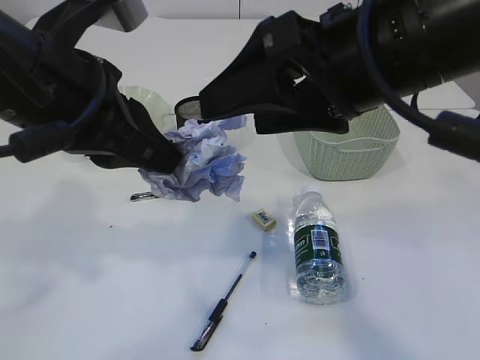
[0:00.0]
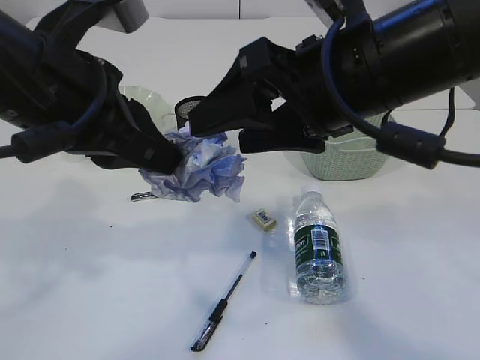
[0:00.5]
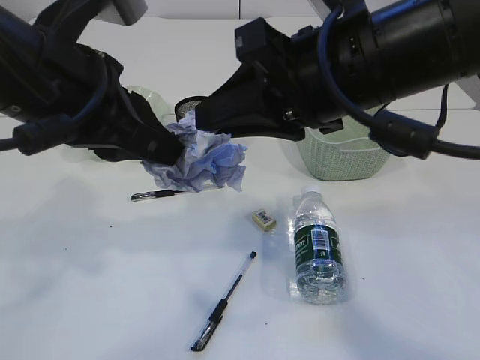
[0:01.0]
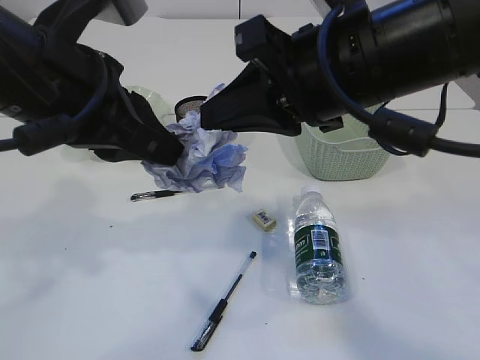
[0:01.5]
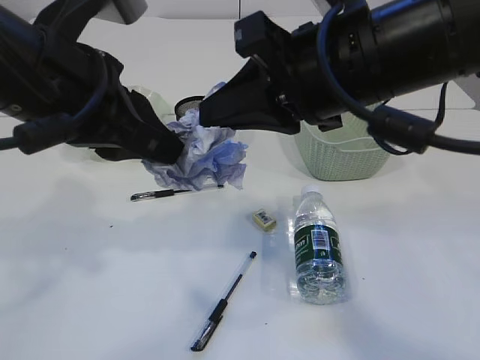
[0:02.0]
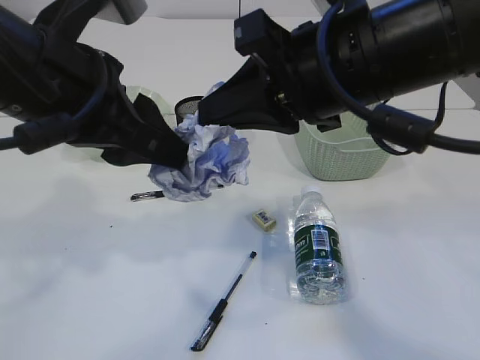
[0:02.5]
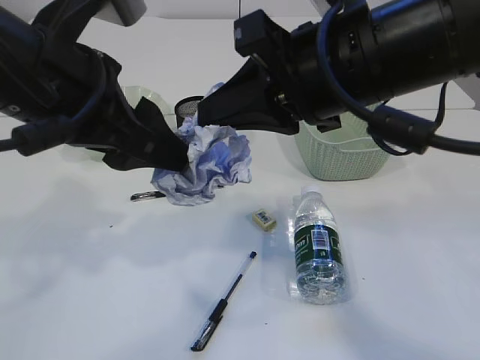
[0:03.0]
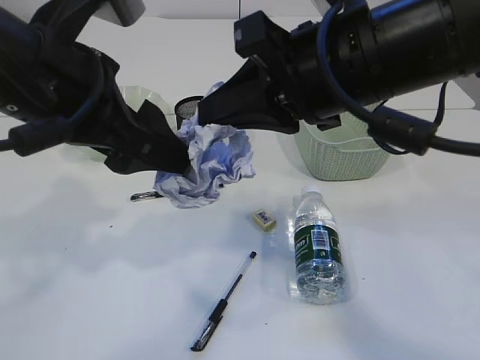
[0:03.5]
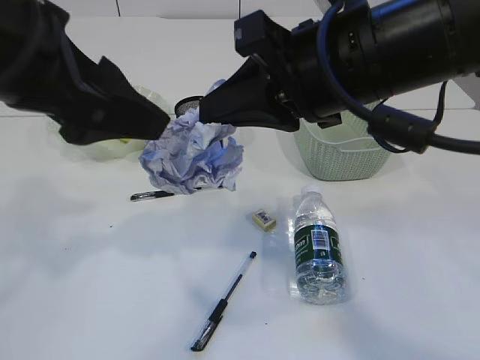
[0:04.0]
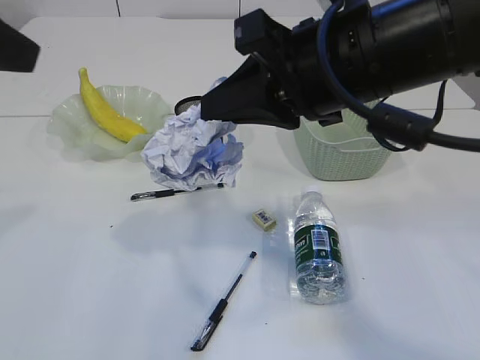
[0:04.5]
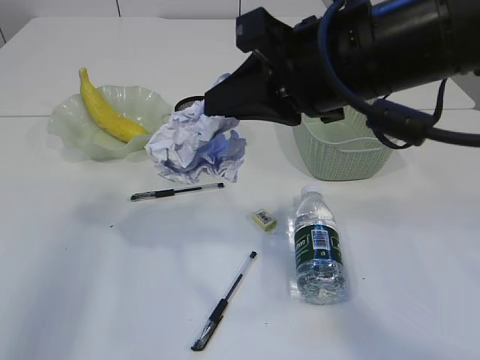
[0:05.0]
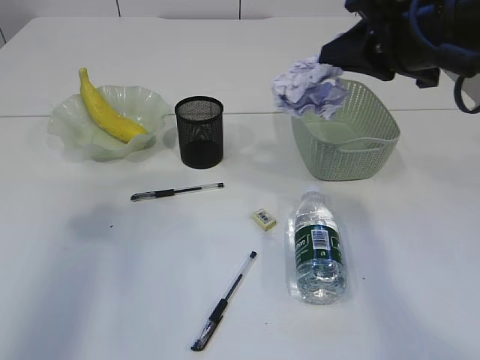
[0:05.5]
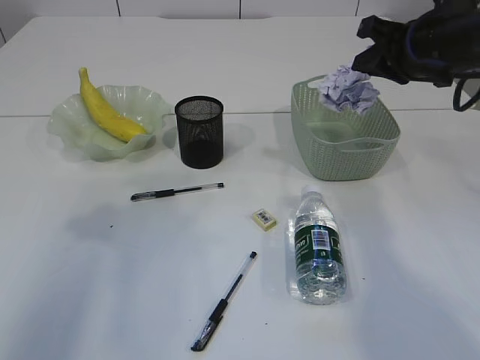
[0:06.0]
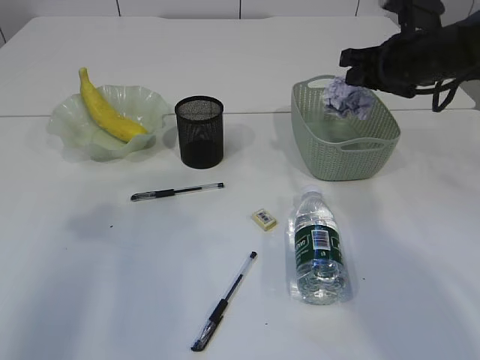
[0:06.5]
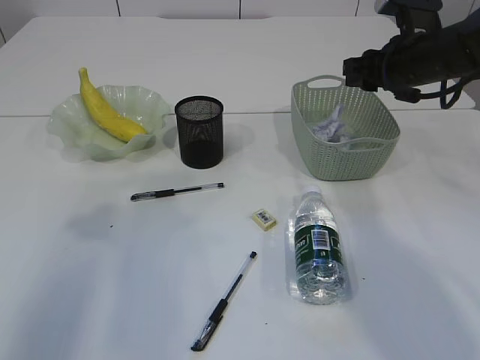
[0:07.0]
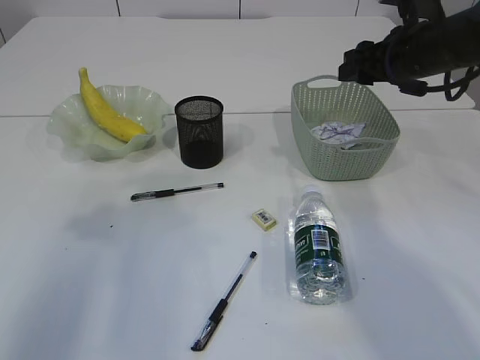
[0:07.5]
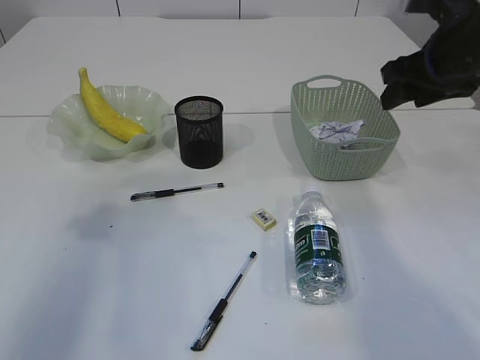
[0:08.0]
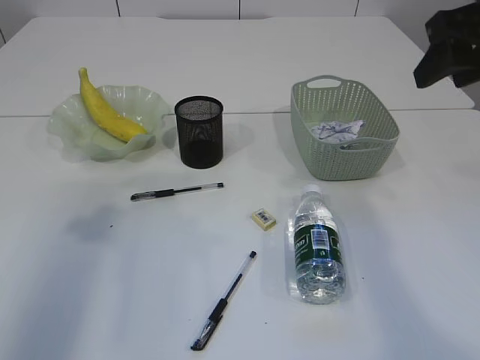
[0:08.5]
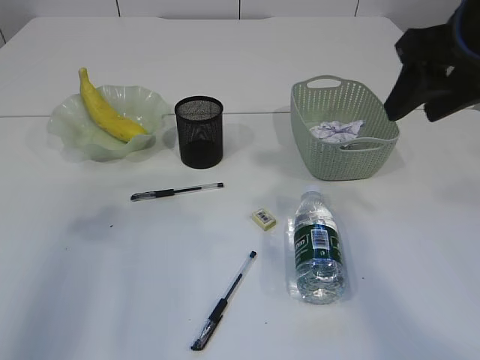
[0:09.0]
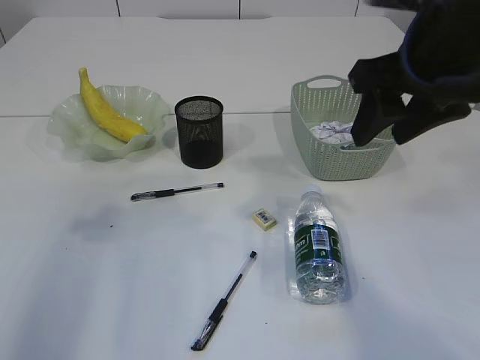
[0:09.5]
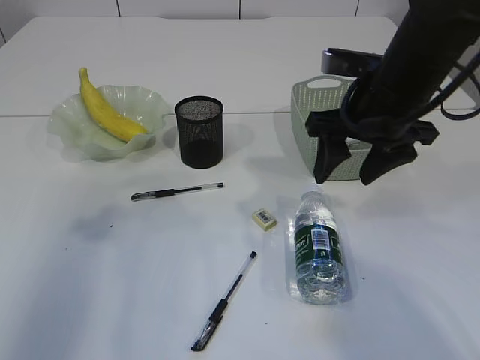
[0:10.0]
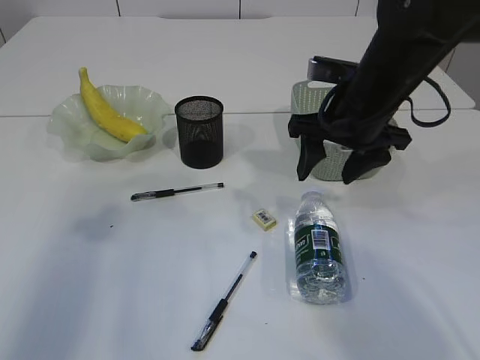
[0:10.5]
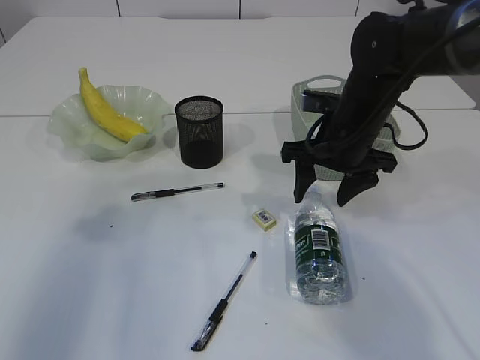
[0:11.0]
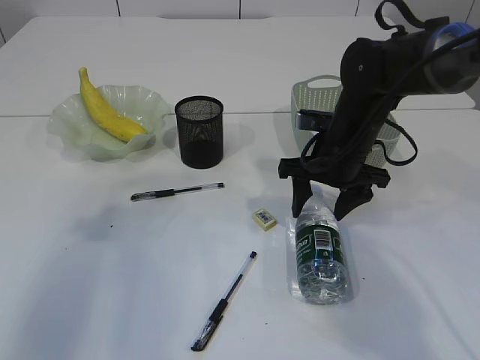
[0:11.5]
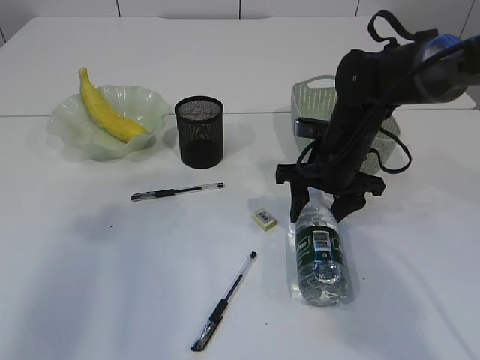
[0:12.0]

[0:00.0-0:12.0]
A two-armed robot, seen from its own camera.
Step, 0.0 to 4.0 s: Hand over the waste paper.
Step, 4.5 to 7.5 s: Place the waste paper in the basket.
0.0 to 2.0 s: The right gripper closes its fingers.
2.0 to 4.0 s: The left gripper opens its fingers.
4.0 to 6.0 s: The left gripper goes approximately 15 cm to the left. The right gripper travels to the right and forward by some 20 cm.
6.0 to 8.0 s: The right gripper opens up.
8.0 to 10.0 s: The right gripper is displaced to the left by some 10 cm, and moves some 5 cm upward and comes back.
10.0 to 12.0 s: The right gripper travels downward and forward by some 15 cm.

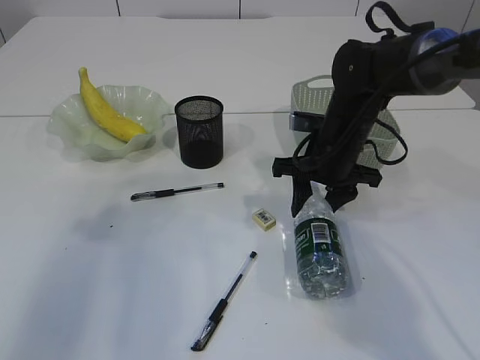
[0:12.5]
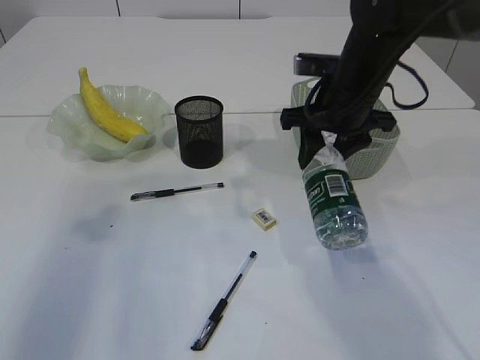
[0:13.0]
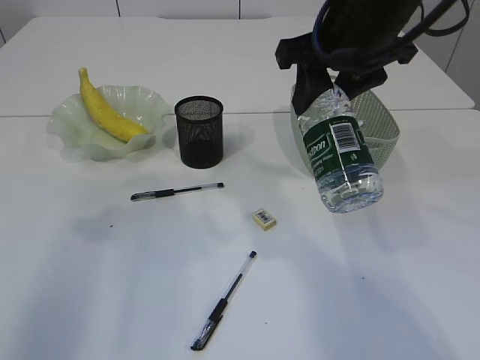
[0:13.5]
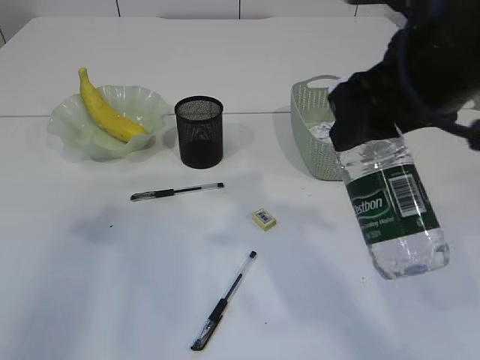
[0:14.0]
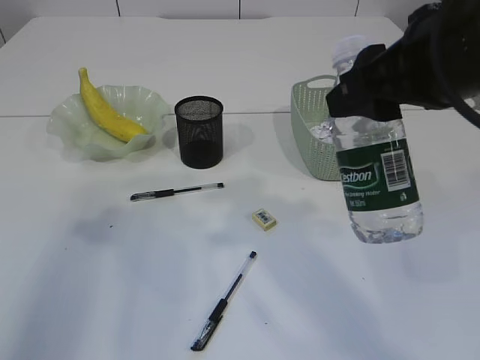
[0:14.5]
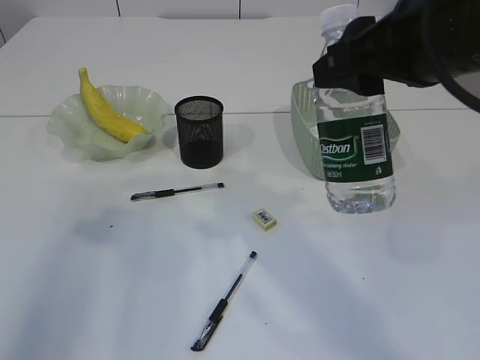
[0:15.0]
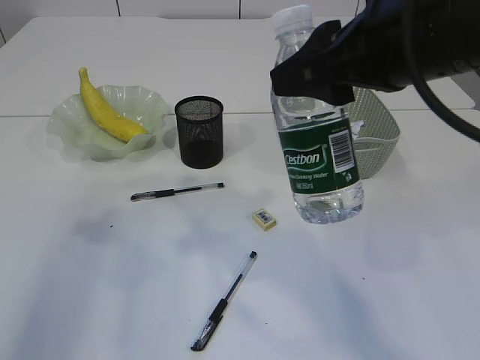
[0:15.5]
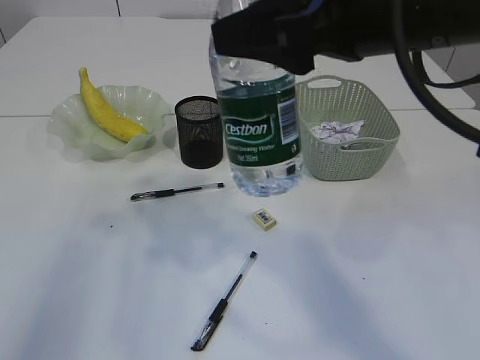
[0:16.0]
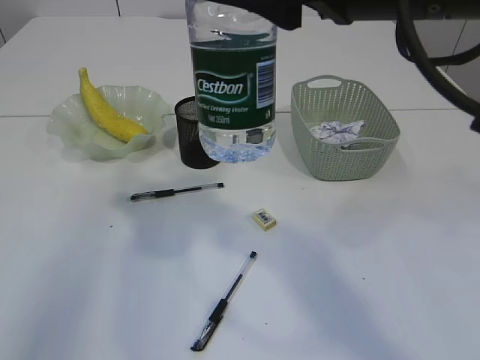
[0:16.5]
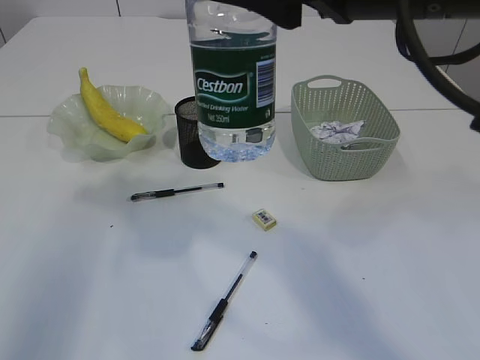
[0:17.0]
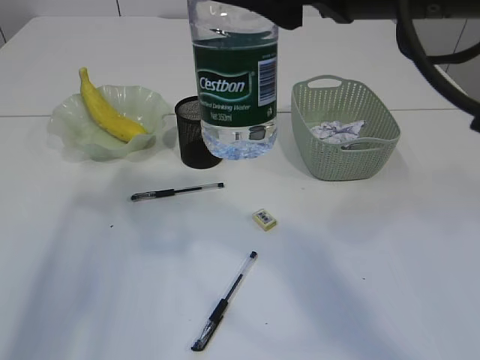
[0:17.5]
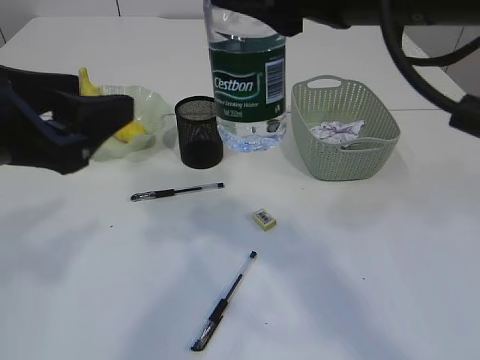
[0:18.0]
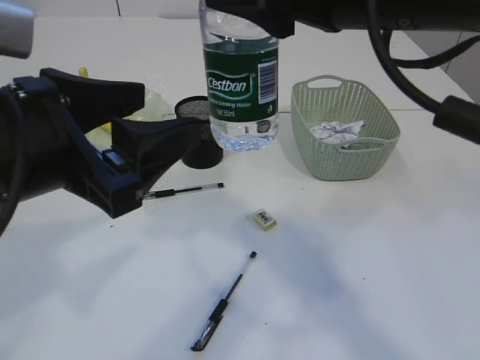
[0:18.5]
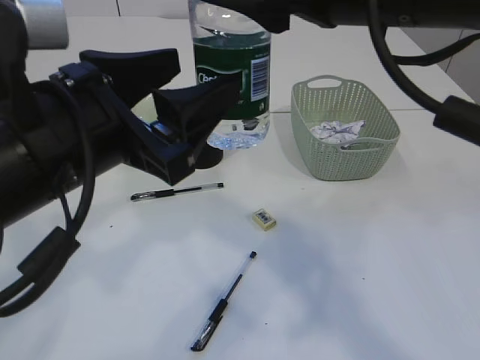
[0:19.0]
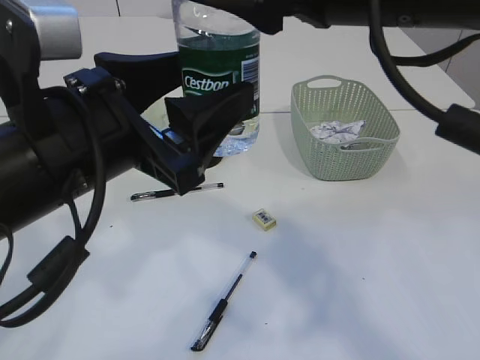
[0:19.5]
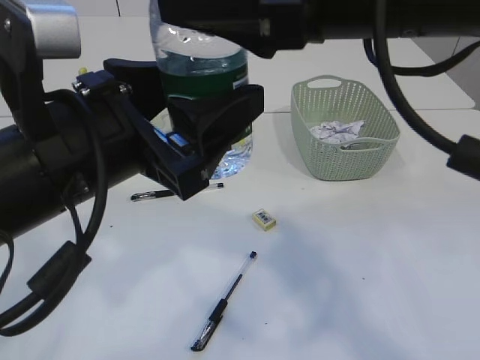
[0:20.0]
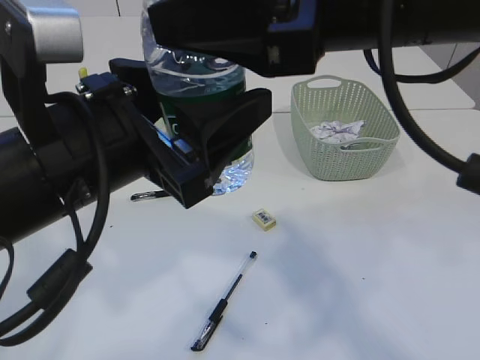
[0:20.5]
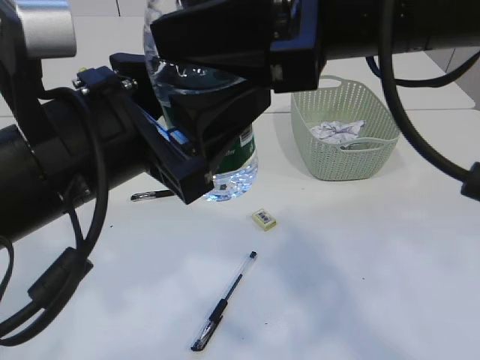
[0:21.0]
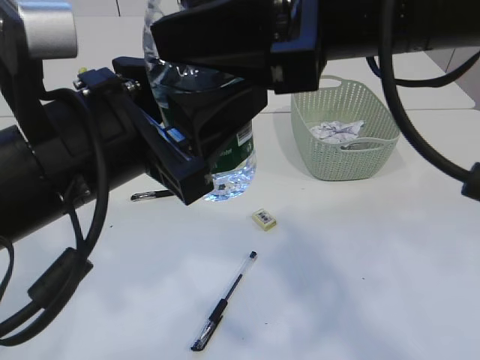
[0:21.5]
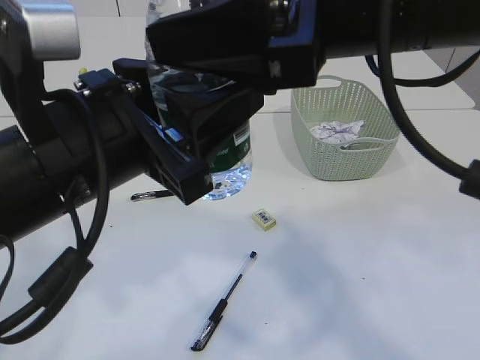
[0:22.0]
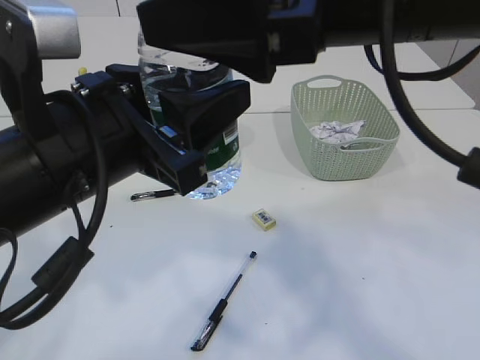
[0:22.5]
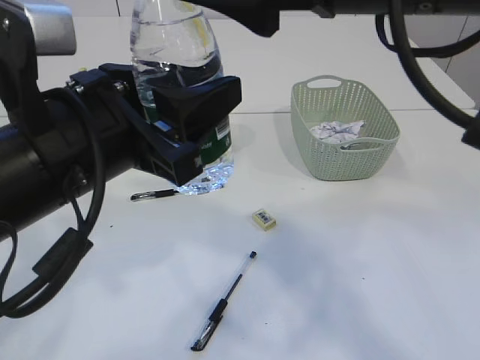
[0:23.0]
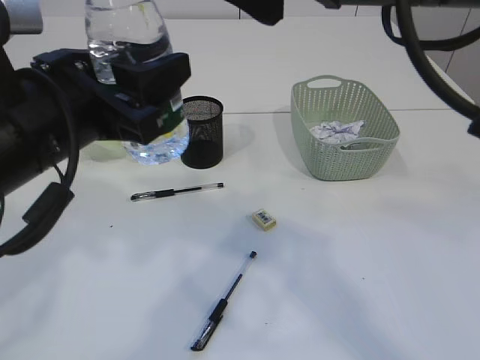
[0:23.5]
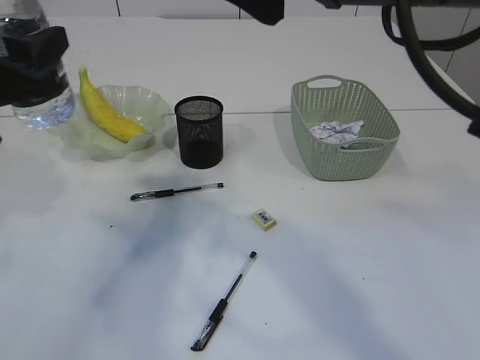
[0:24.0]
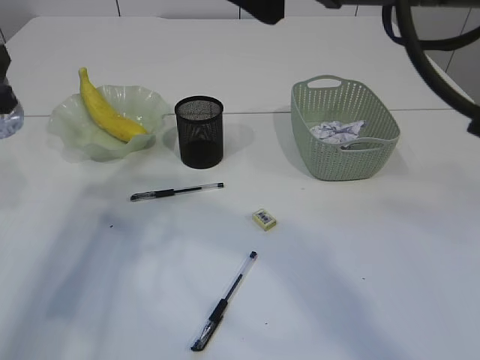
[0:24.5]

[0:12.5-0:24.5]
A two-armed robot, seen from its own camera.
Step, 13.5 to 23.5 s: transfer the bottle to the left arm.
12.5 to 14.5 s: The right gripper goes roughly 25 cm upward and backward.
14.5 to 16.5 s: The right gripper heads to the left, covering roughly 5 cm.
16.5 to 18.5 s: The left gripper moves to the right and downward, some 15 cm.
20.5 to 22.5 s: The right gripper opens.
22.5 to 24.5 s: The left gripper shifts roughly 20 cm to the left and forward.

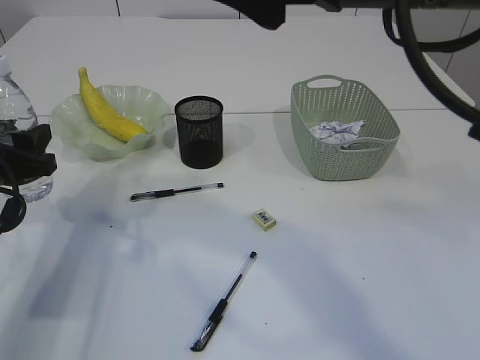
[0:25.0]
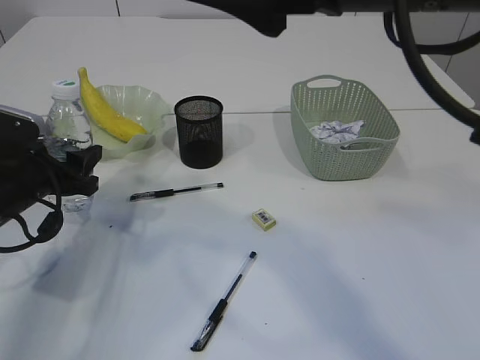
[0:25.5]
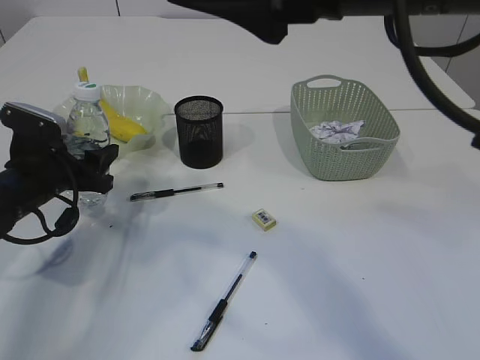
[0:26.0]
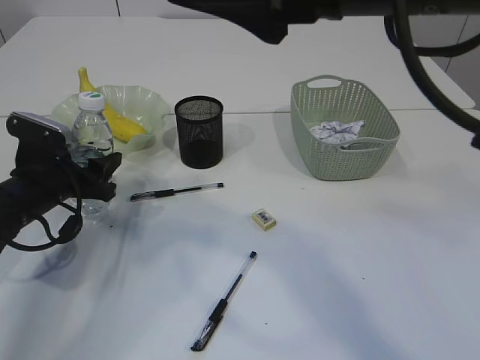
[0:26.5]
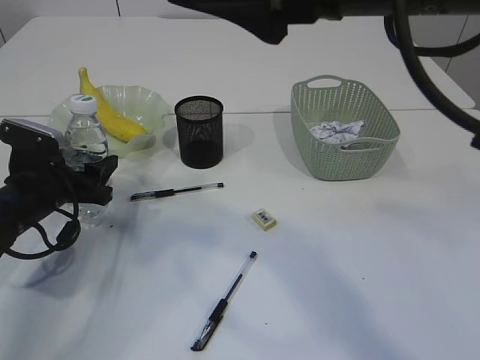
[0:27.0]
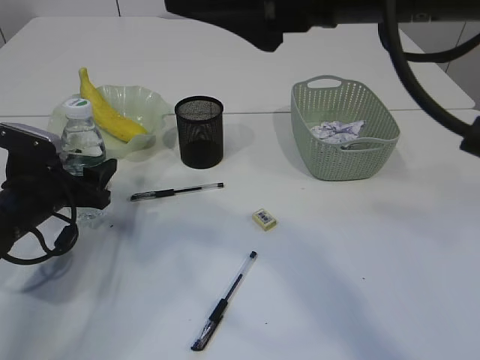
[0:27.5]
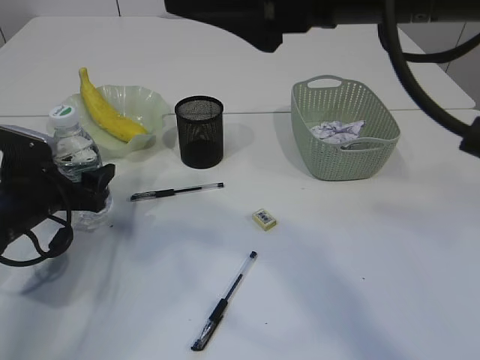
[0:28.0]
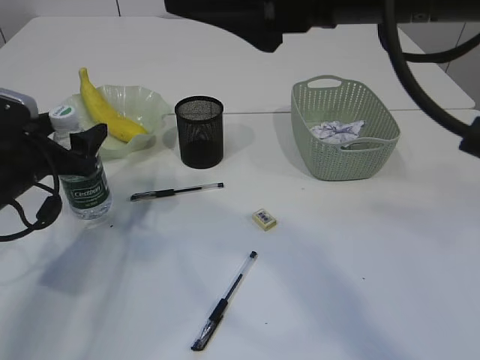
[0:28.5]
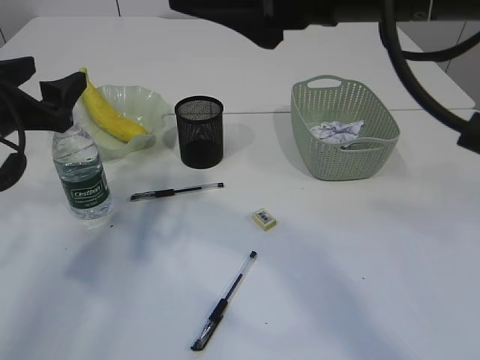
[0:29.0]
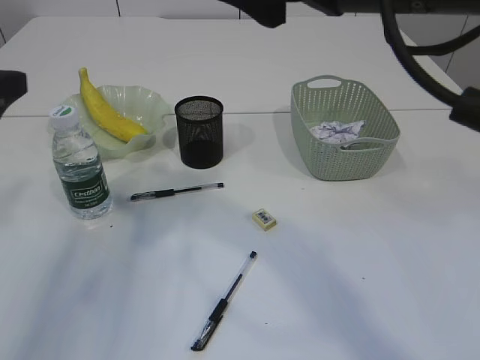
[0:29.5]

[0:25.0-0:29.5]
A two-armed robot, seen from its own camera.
Step, 25.0 to 29.0 s: Place the bottle.
25.0 to 27.0 s: The left gripper heads downward, covering approximately 5 cm.
27.0 to 29.5 s: The left gripper is displaced upward and backward by roughly 20 cm.
